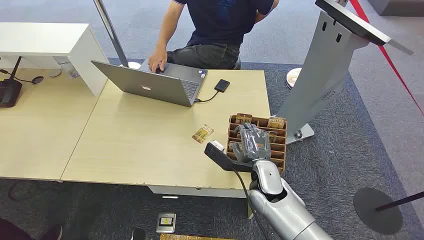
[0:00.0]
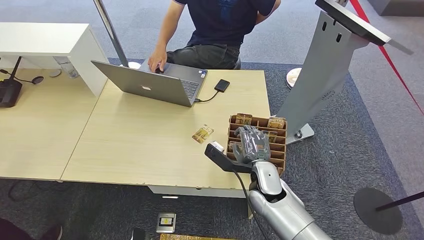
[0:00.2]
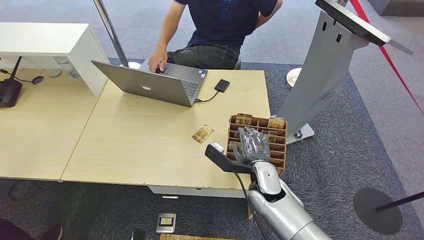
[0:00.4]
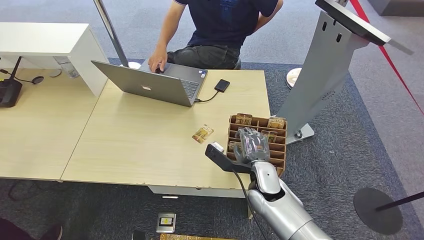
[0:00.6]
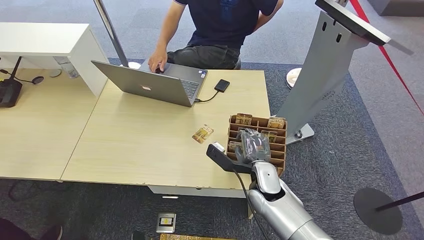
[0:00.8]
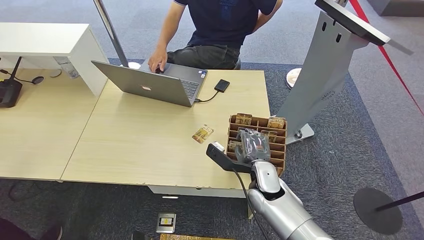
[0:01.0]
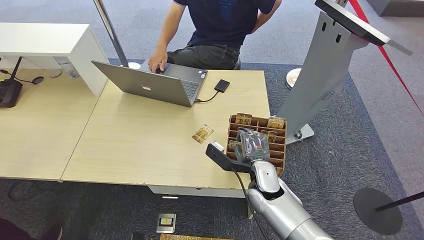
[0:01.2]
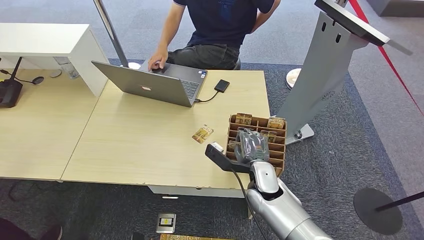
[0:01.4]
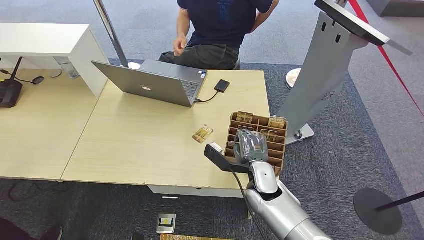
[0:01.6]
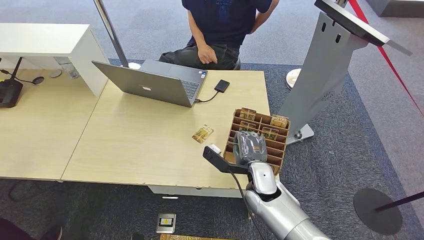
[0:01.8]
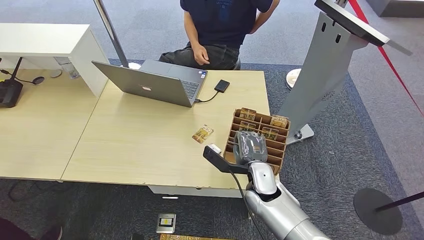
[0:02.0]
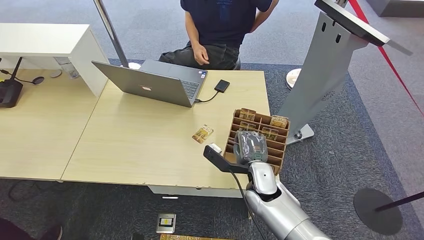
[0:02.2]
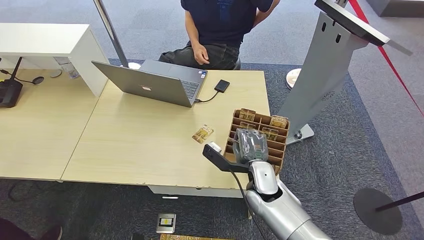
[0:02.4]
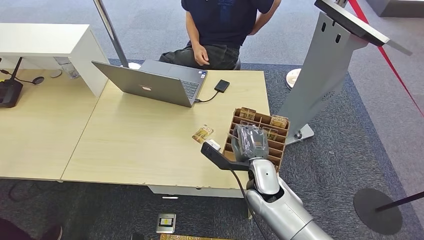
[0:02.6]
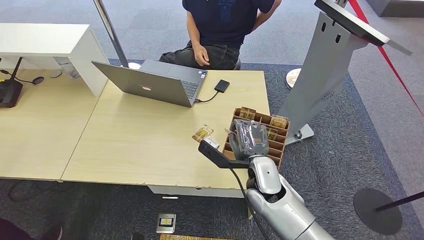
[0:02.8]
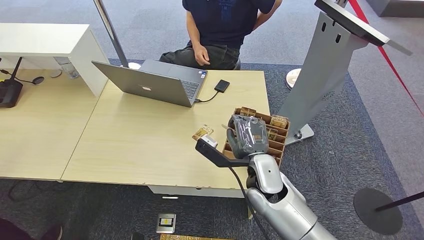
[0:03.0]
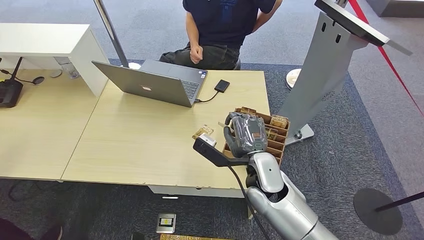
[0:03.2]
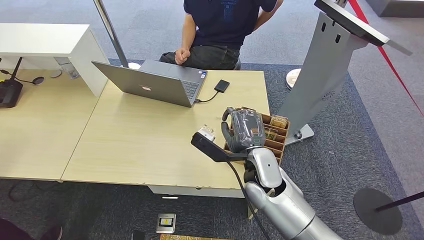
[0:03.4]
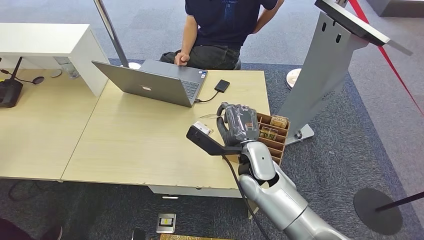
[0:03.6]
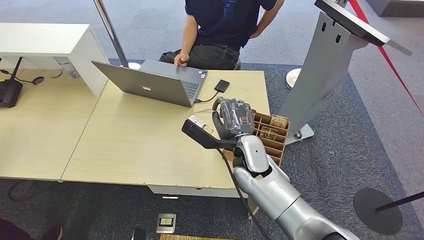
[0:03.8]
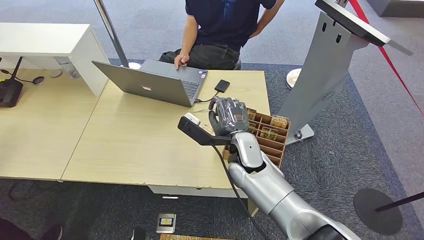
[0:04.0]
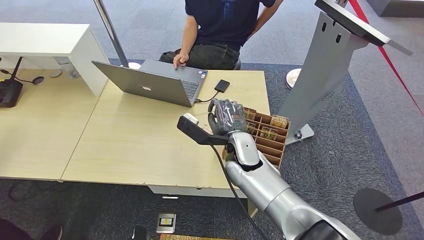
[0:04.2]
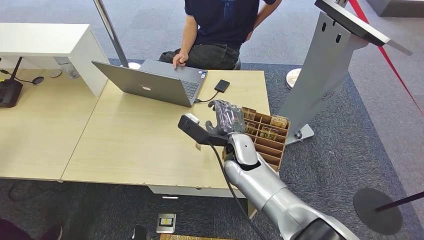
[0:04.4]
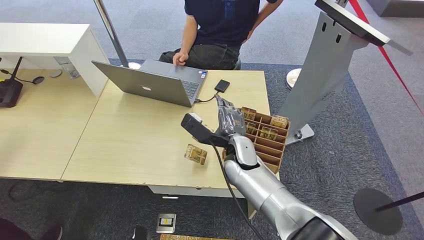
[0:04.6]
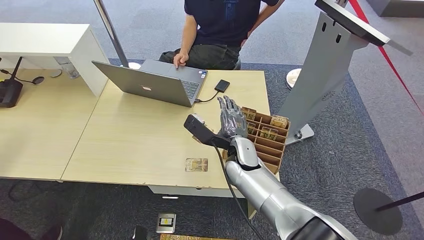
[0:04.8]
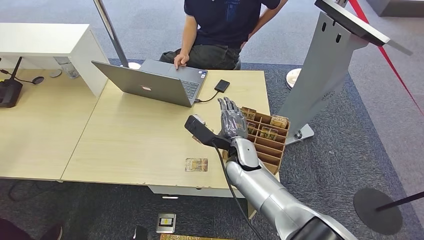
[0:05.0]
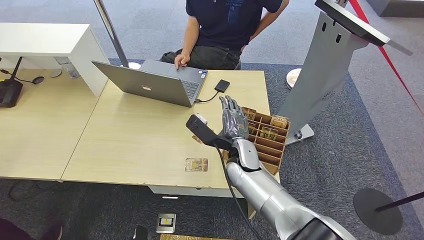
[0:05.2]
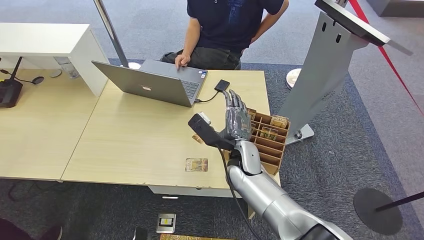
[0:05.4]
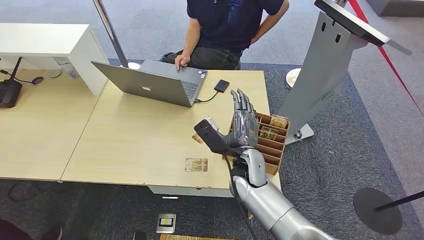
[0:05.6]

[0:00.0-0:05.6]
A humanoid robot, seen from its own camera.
Step, 0:00.0 to 0:03.0: Pick up the key card from the card box.
Step, 0:03.4 to 0:05.6: Hand the key card to the target.
0:01.4 to 0:02.8: The hands move only a little.
0:02.8 to 0:04.2: The right hand is displaced to the left by some 5 cm.
0:04.2 to 0:05.6: The hands move only a little.
